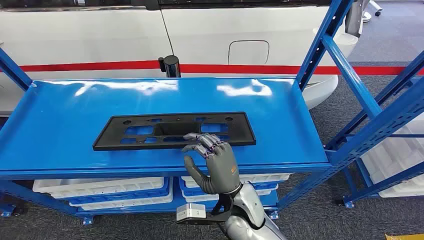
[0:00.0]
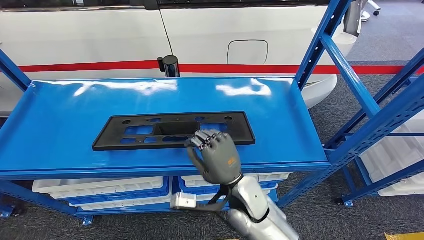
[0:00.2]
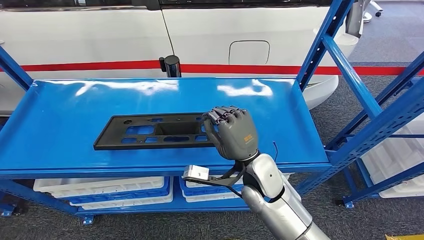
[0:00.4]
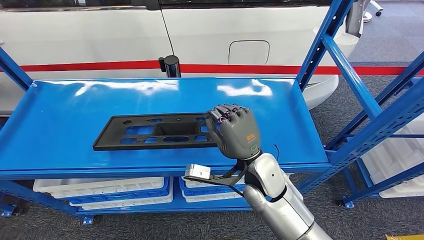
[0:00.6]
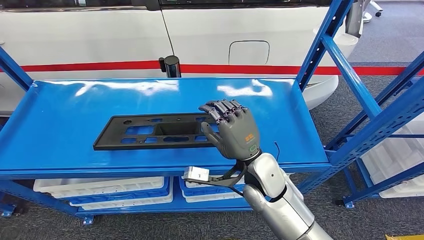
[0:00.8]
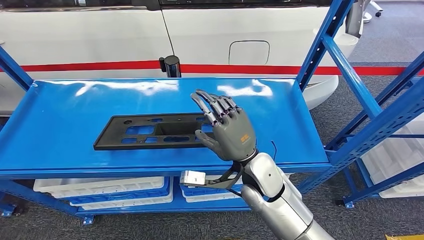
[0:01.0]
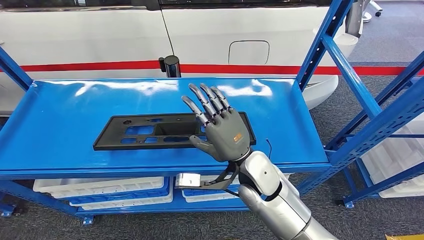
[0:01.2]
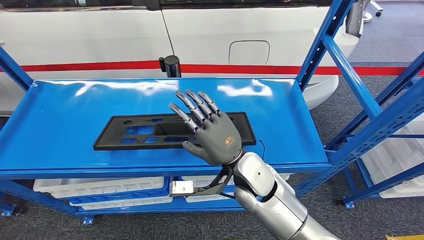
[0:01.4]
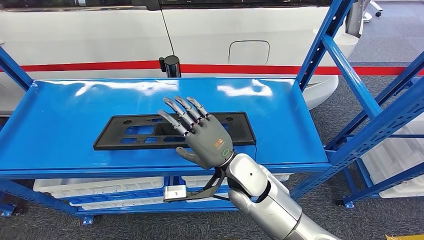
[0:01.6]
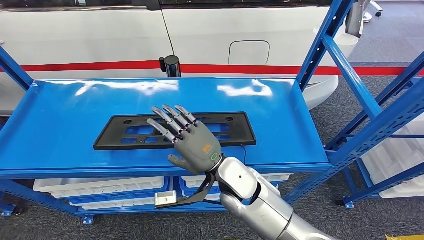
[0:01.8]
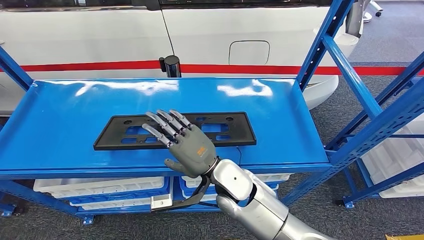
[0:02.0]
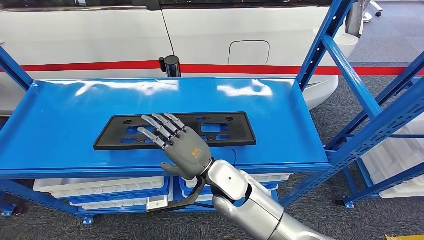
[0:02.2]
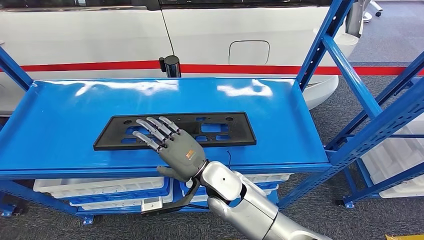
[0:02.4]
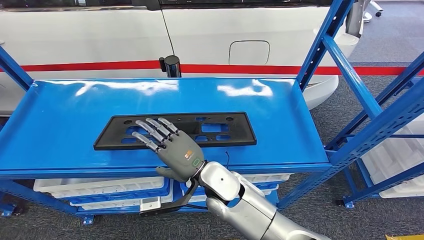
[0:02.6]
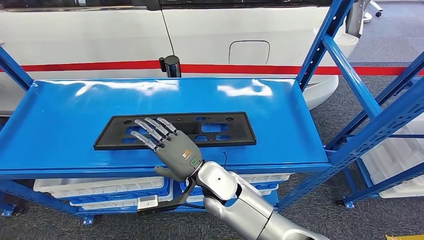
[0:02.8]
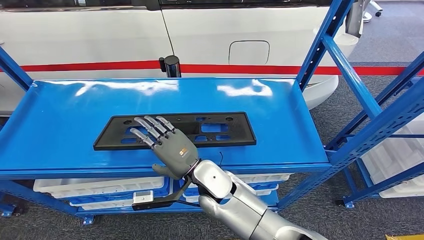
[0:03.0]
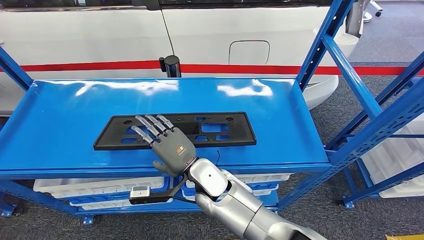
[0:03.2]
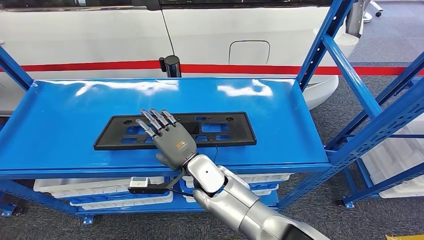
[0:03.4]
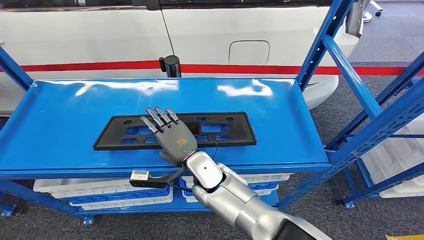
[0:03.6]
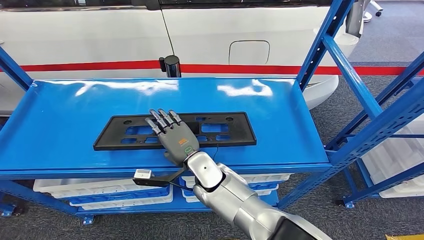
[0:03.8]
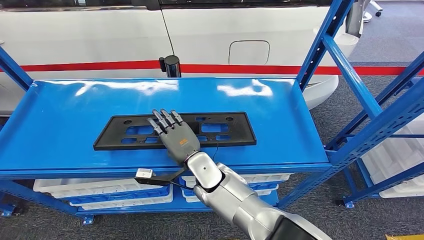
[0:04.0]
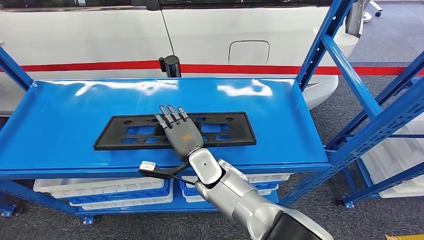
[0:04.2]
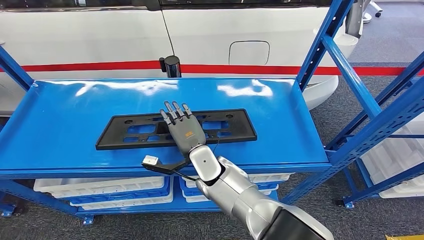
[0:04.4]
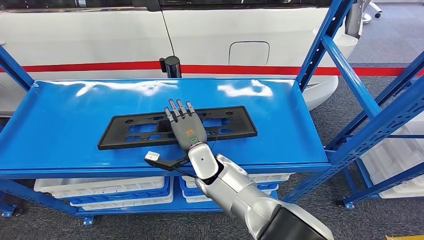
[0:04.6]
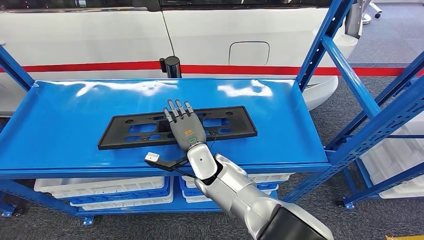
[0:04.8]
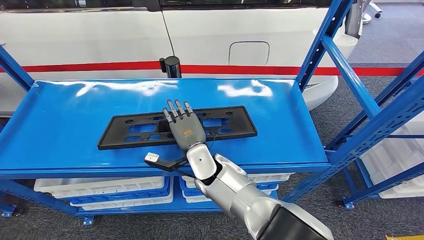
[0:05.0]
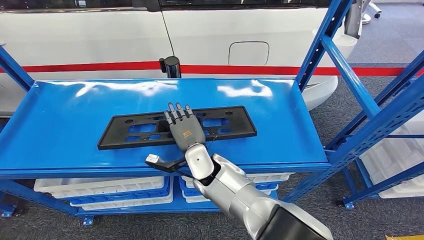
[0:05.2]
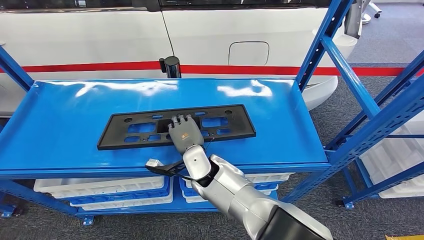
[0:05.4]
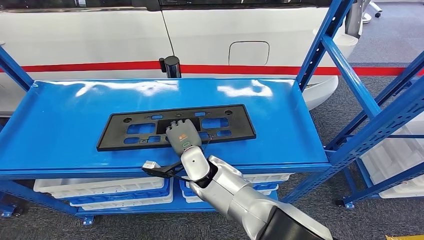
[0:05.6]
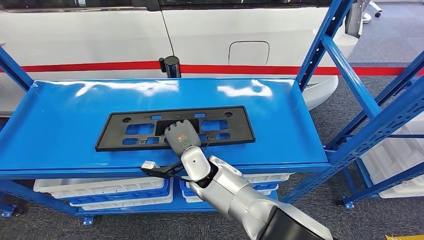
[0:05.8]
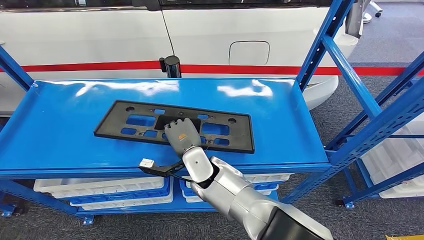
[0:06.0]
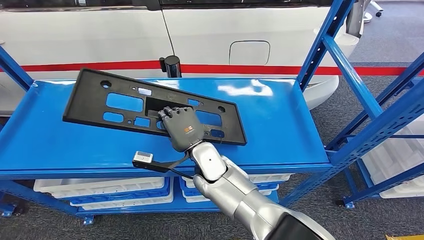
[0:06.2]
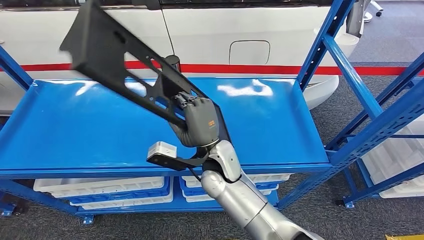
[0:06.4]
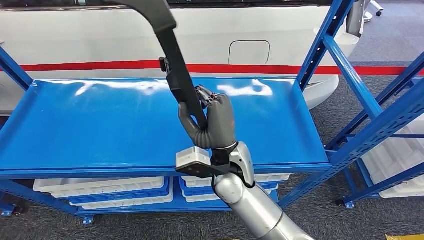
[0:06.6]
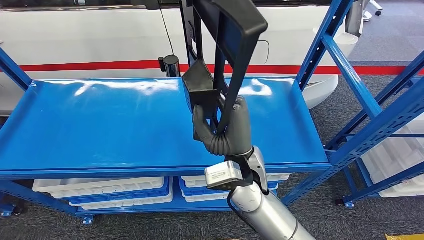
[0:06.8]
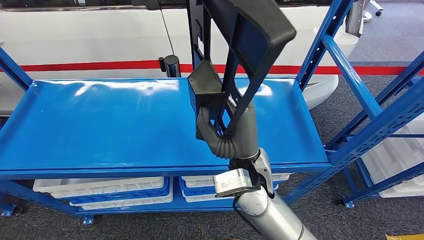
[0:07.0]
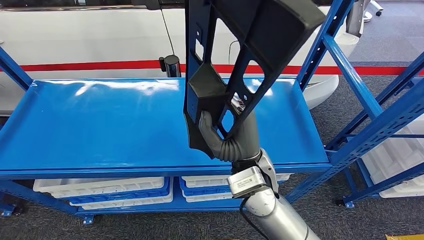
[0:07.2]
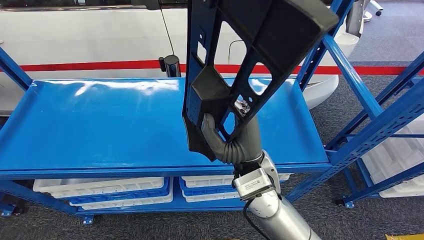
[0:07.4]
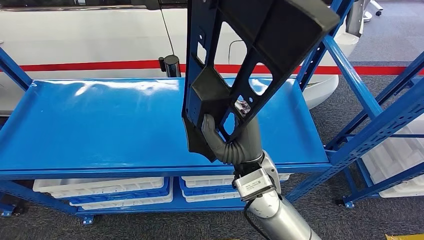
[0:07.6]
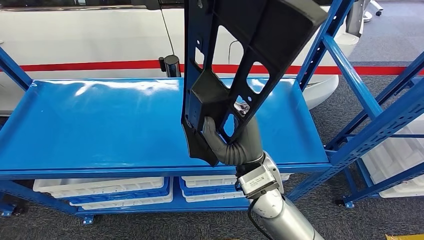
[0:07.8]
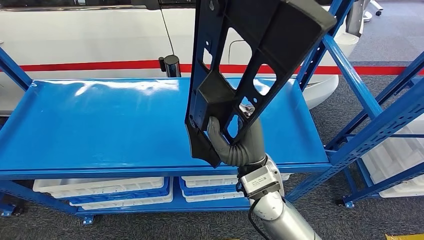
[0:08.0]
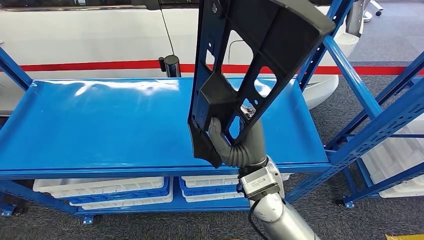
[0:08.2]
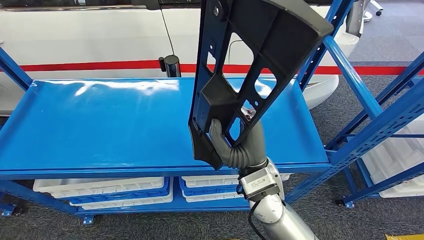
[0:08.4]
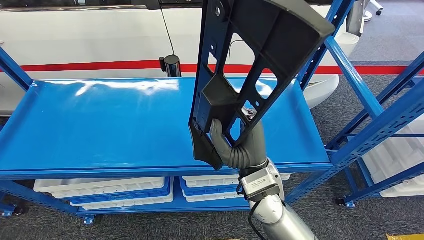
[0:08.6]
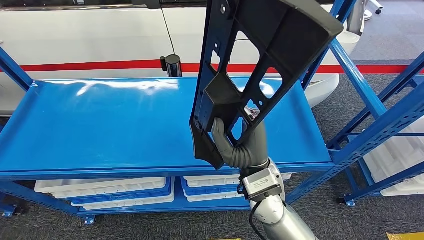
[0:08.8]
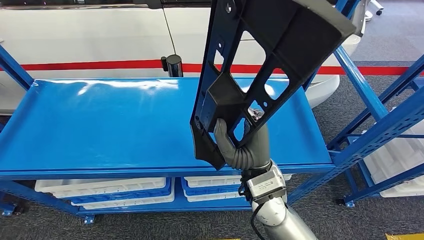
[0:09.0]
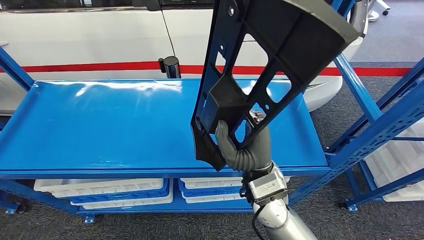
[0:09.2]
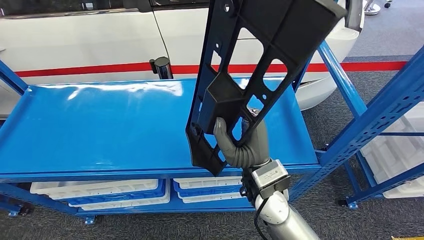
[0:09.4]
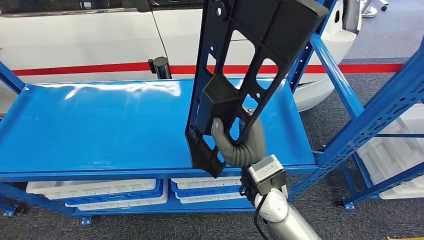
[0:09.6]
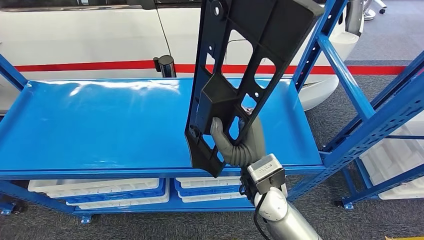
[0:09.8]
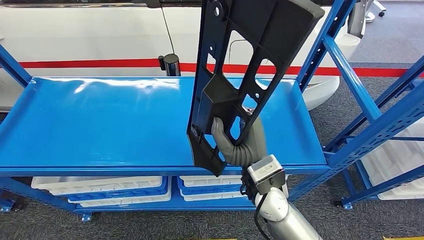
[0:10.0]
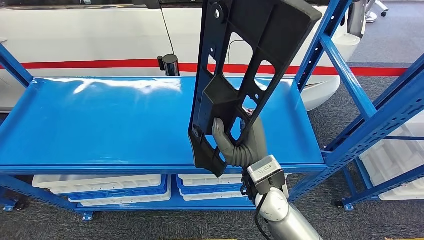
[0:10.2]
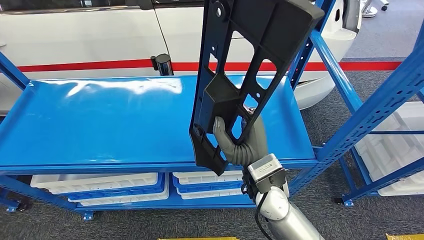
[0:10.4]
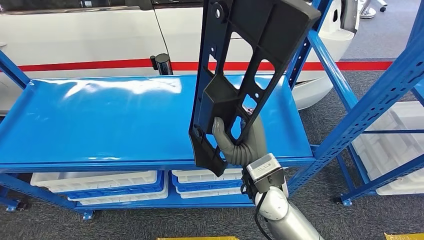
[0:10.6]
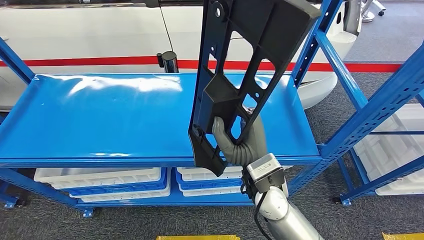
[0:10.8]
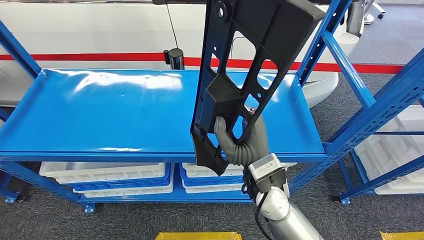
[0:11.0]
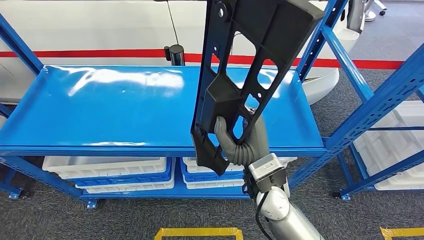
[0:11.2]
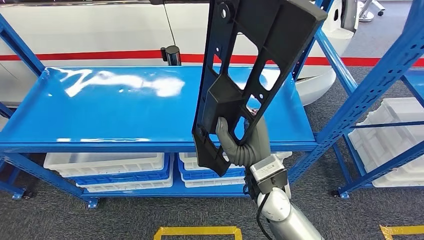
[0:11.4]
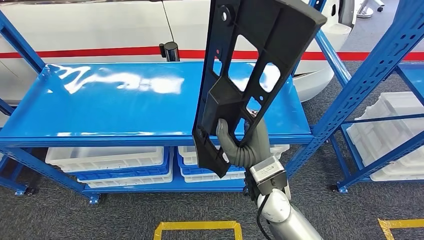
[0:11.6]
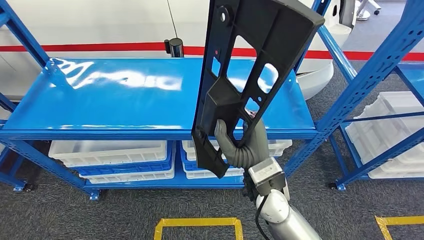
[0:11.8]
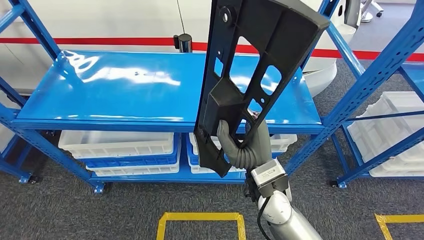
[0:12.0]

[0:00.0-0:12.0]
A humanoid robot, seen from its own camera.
0:01.6 to 0:03.0: The right hand heads to the left, covering about 5 cm.
0:03.0 to 0:04.4: The right hand is displaced forward by about 5 cm.
0:04.4 to 0:06.0: There are only small adjustments of the hands.
0:07.6 to 0:09.0: The hands move only a little.

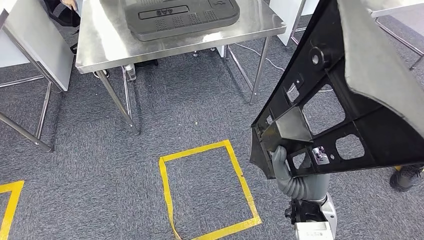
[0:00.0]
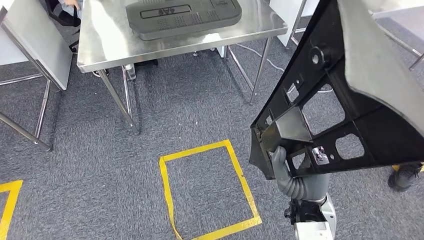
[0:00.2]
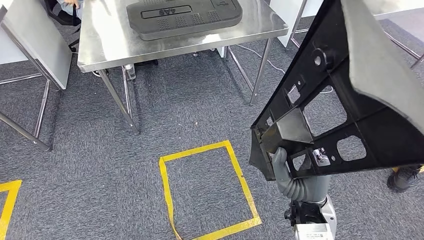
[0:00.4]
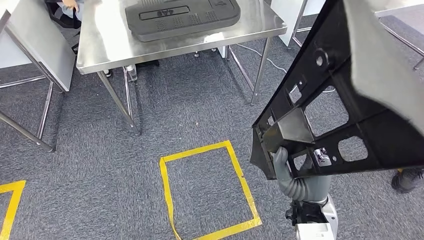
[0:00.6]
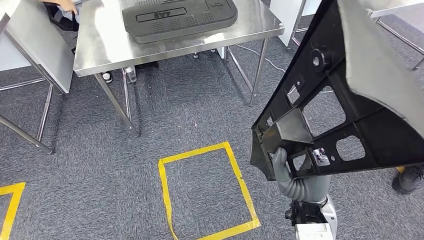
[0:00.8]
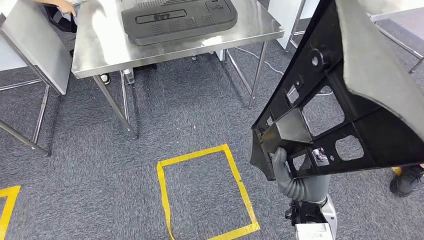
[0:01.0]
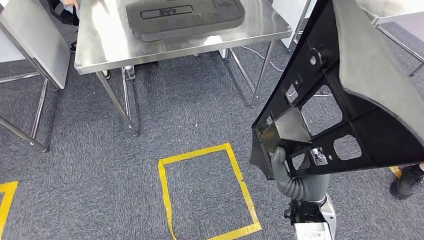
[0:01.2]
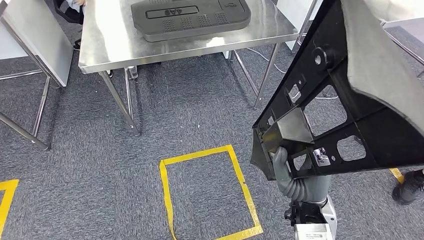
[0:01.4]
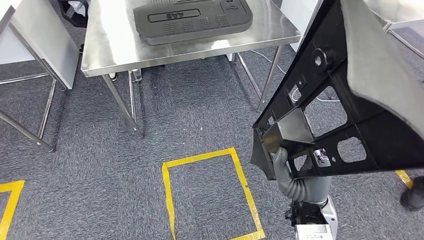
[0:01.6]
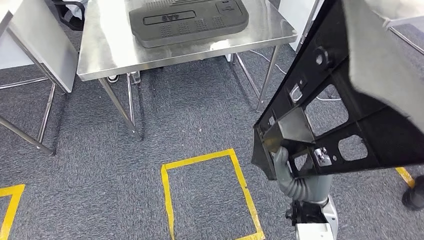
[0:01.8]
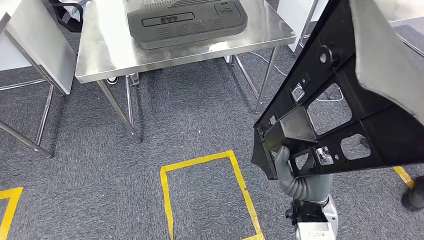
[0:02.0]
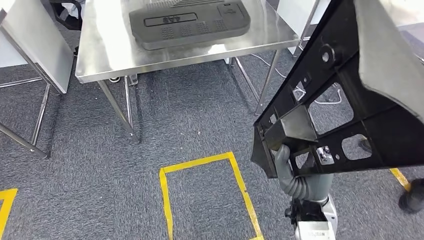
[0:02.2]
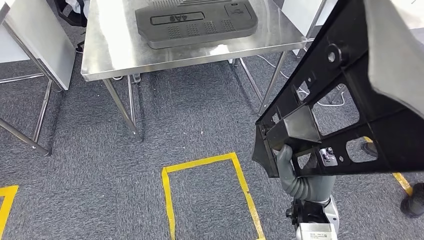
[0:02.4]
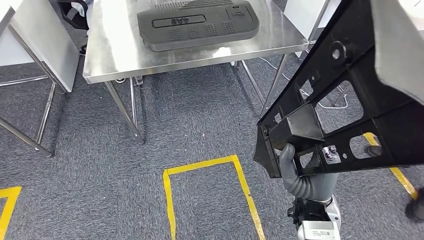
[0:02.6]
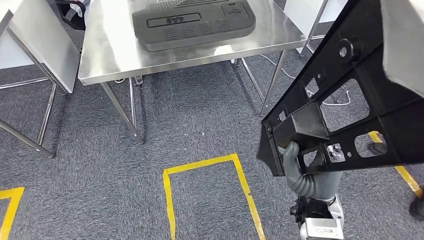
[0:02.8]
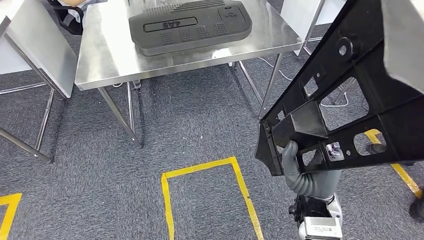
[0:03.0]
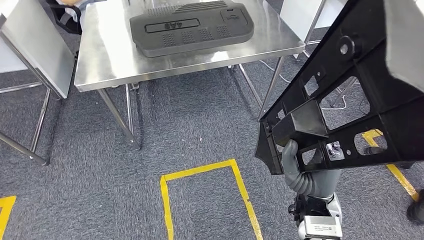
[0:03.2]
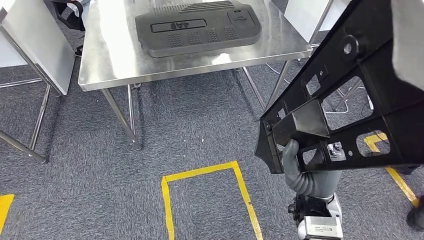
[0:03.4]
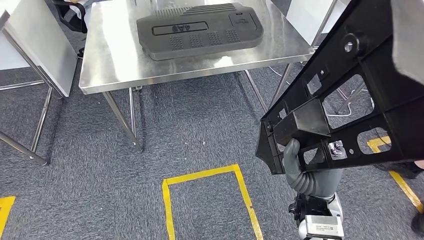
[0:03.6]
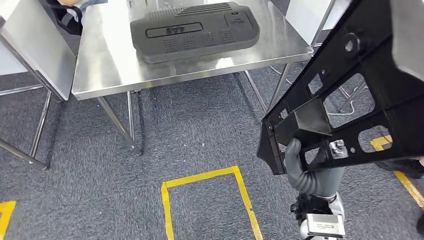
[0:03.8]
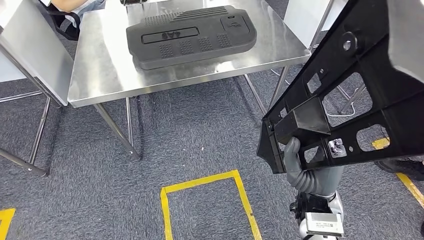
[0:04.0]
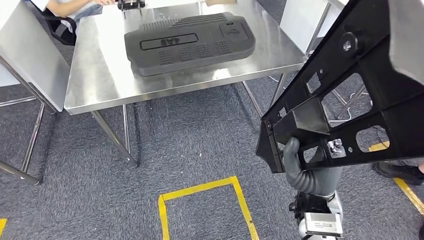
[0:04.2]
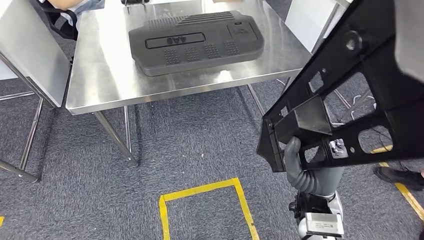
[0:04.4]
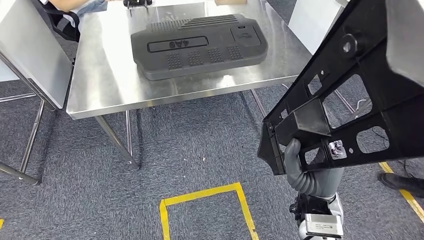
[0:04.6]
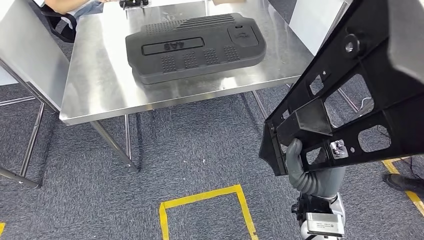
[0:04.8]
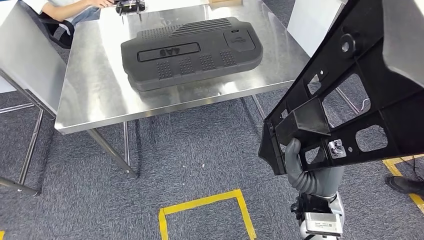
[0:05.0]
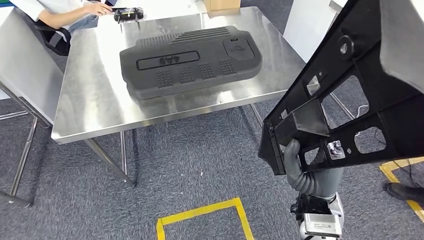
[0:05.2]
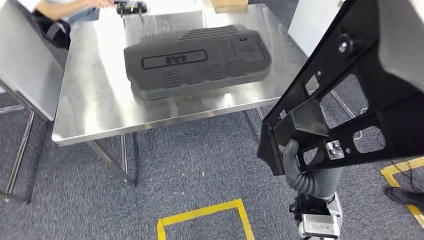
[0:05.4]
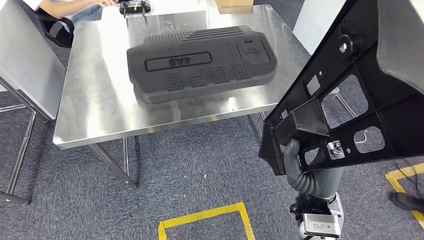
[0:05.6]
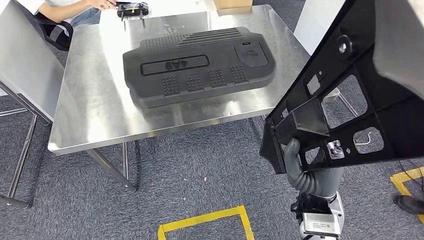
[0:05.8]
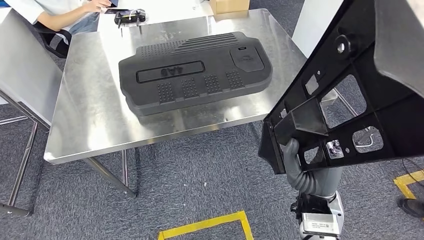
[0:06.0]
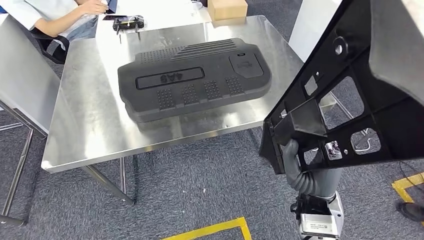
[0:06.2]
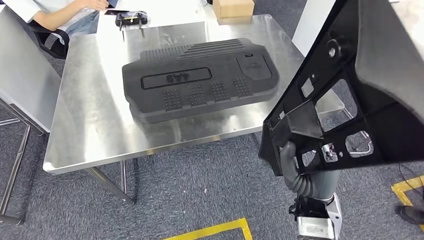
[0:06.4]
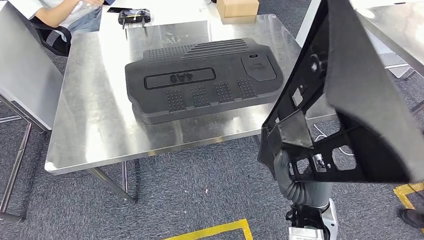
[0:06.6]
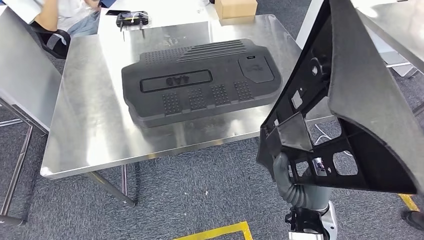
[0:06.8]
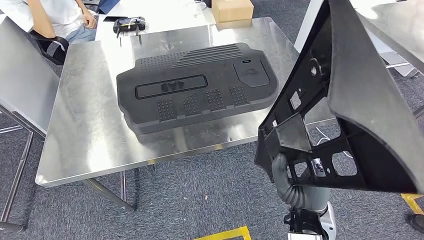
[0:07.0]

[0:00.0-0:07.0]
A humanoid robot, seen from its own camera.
Step, 0:00.0 to 0:03.2: Move the large material to the workbench.
0:00.0 to 0:01.4: Both hands stay put.
